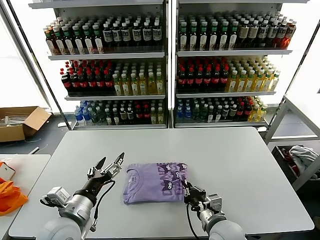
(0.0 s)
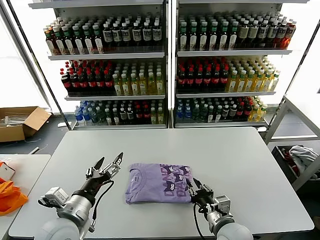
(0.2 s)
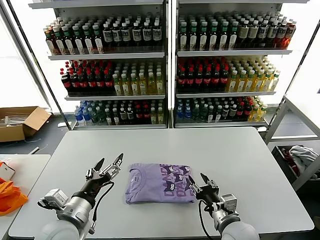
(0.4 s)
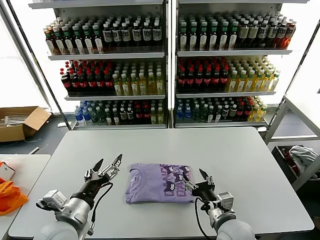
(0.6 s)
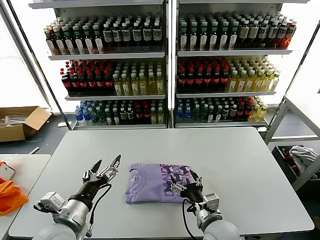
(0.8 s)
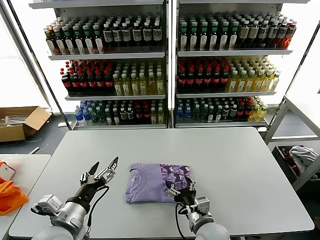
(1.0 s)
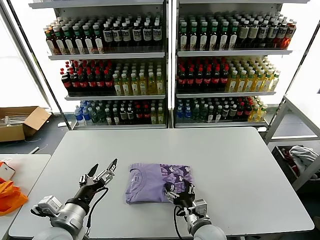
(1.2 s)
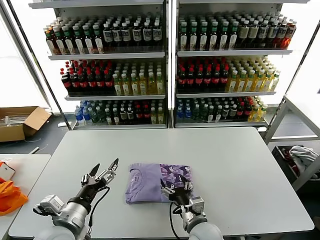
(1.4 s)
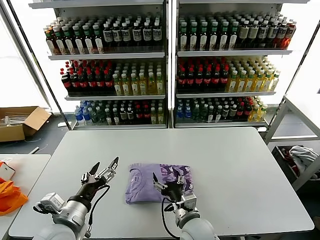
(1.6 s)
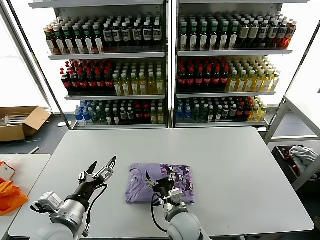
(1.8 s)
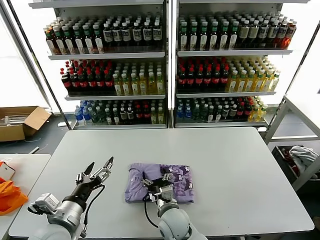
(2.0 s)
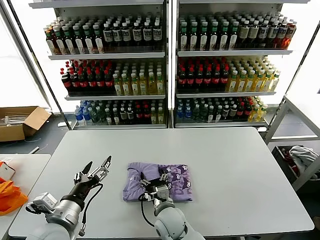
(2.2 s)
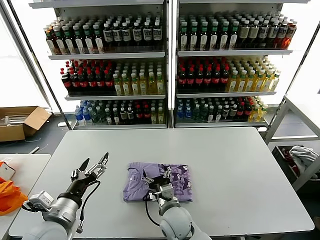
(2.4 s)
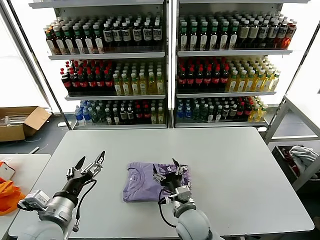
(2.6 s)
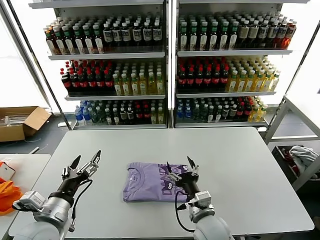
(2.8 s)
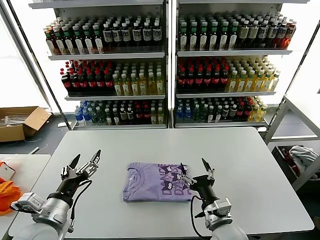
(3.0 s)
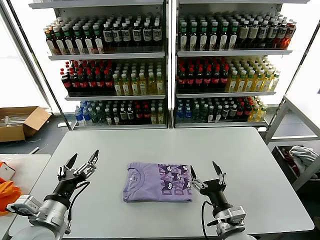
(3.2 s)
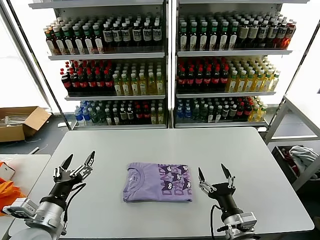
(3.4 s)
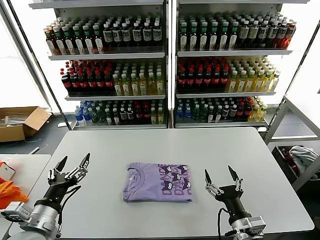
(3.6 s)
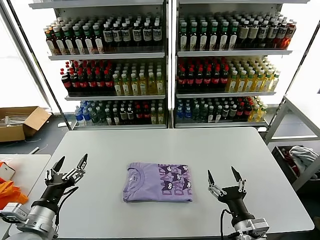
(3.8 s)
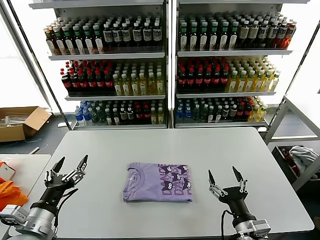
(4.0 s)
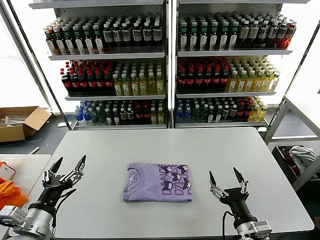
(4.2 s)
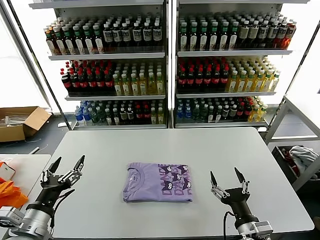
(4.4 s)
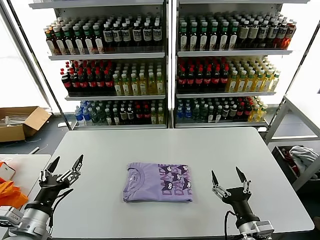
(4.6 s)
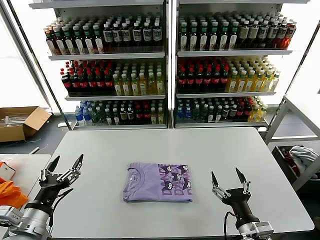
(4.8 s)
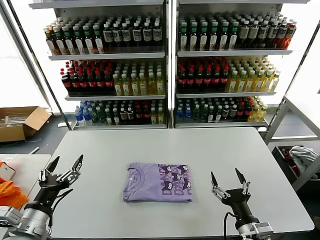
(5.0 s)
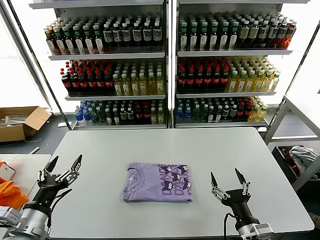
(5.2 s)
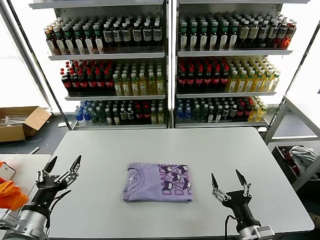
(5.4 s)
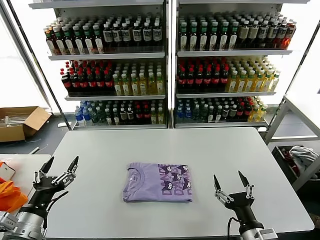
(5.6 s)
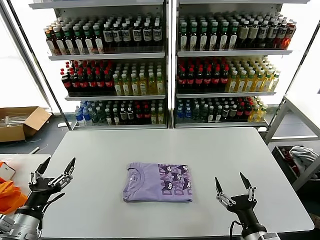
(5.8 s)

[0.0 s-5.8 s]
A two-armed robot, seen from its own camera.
Task of the whole recording: fold and organize the clothes.
Step, 0.0 to 2.4 s: Drag the clothes to the center of the table.
0.0 to 1.4 s: The right gripper ends up roughly 5 cm from where it was, and opens up.
1.4 to 2.8 s: The right gripper reaches roughly 10 cm to the left, then returns.
2.8 to 4.4 s: The right gripper travels to the right and backward by approximately 15 cm, while the left gripper moves approximately 5 cm.
4.4 to 5.8 s: The grippers move only a little.

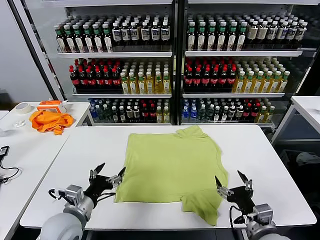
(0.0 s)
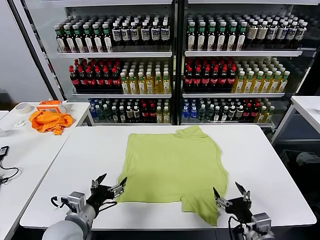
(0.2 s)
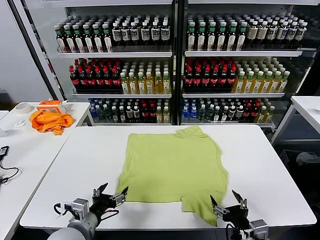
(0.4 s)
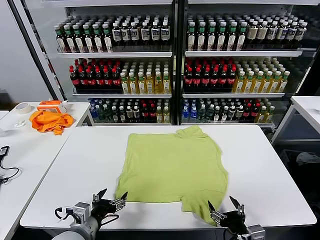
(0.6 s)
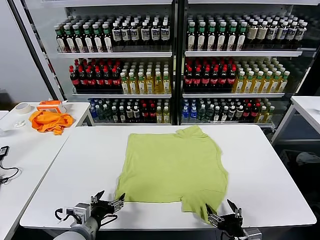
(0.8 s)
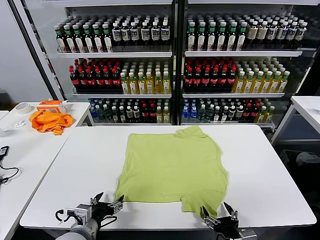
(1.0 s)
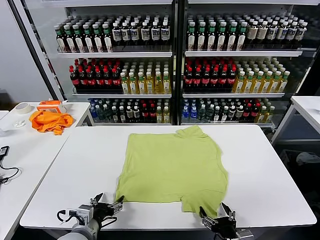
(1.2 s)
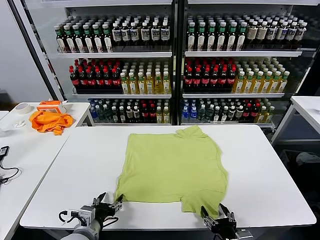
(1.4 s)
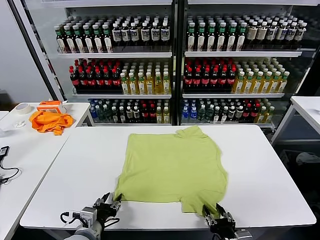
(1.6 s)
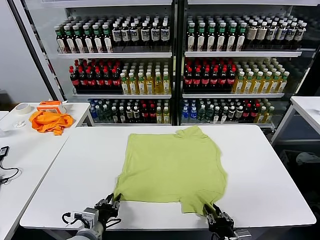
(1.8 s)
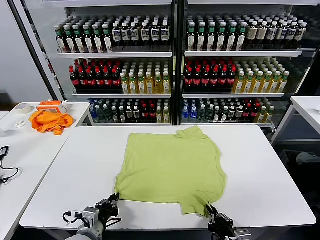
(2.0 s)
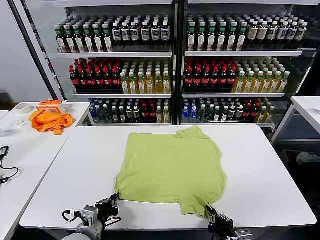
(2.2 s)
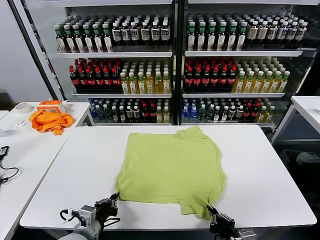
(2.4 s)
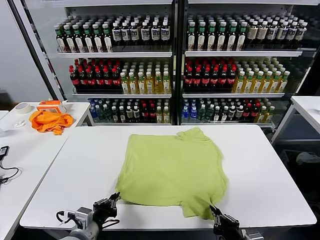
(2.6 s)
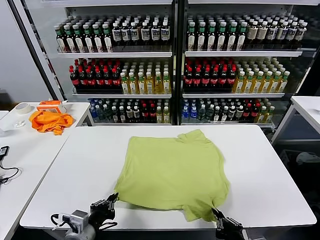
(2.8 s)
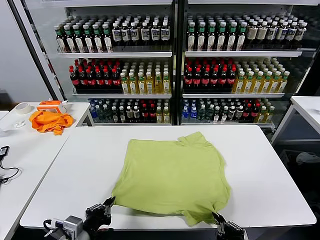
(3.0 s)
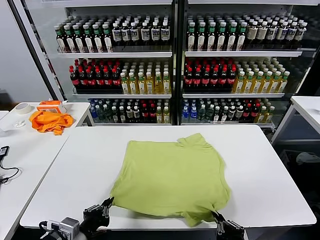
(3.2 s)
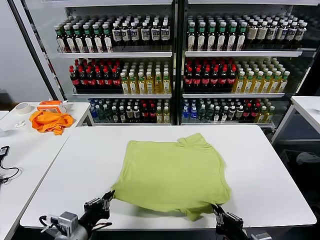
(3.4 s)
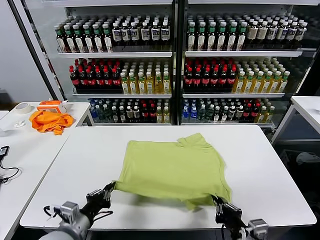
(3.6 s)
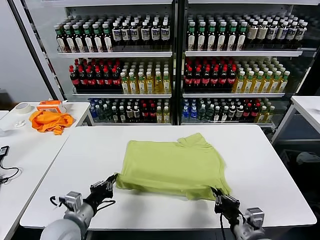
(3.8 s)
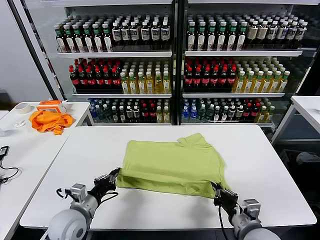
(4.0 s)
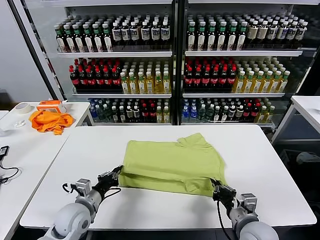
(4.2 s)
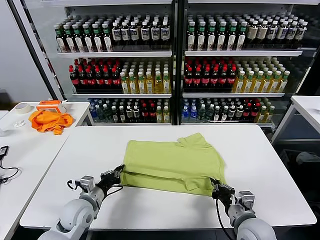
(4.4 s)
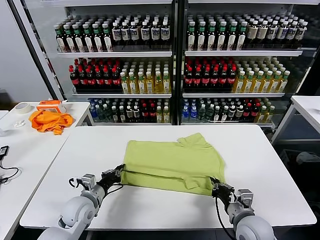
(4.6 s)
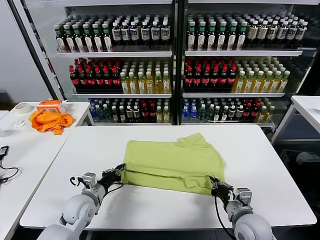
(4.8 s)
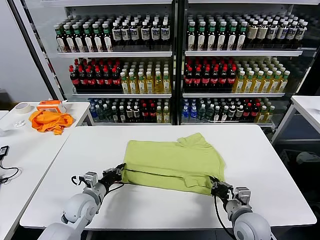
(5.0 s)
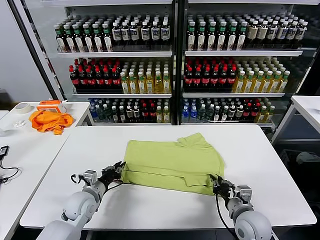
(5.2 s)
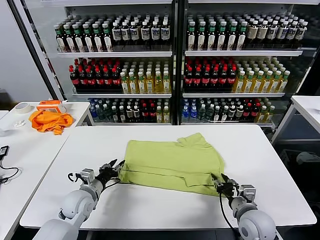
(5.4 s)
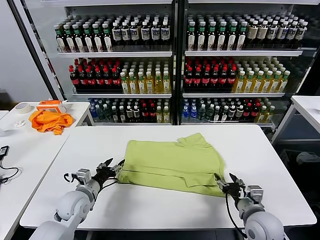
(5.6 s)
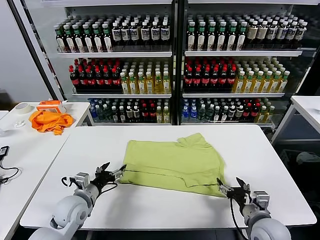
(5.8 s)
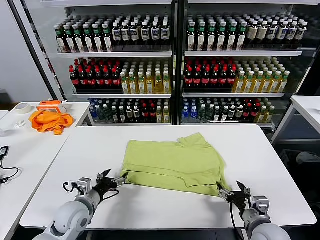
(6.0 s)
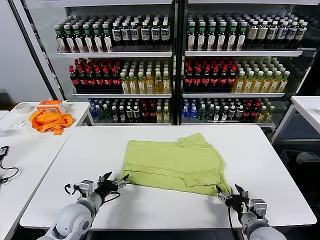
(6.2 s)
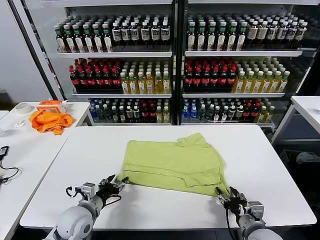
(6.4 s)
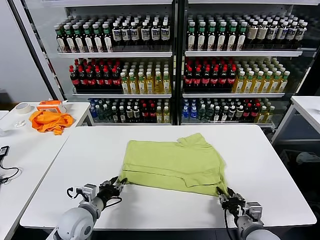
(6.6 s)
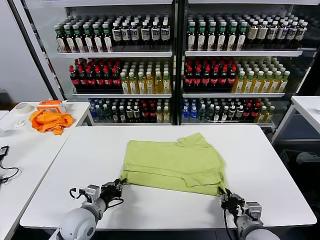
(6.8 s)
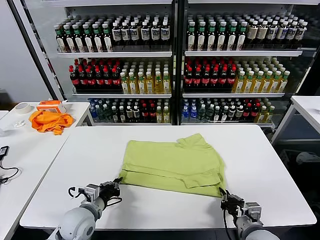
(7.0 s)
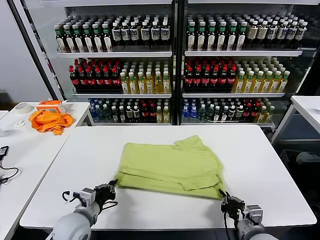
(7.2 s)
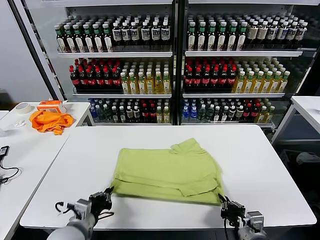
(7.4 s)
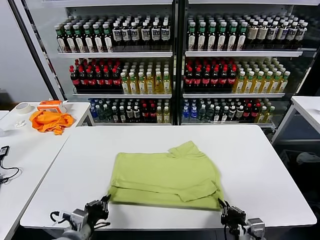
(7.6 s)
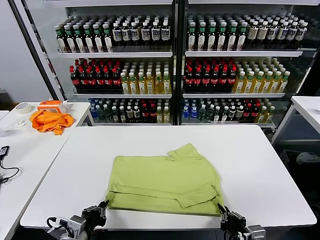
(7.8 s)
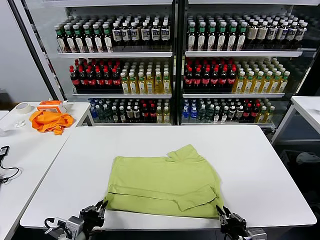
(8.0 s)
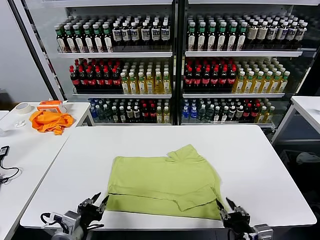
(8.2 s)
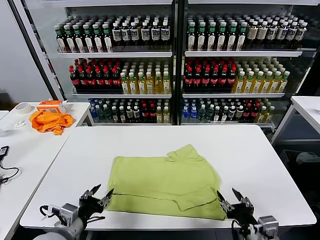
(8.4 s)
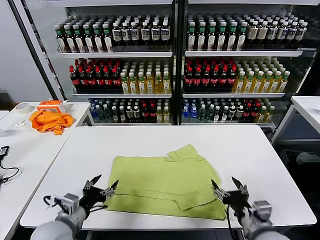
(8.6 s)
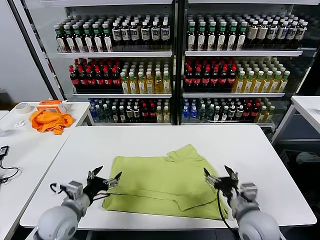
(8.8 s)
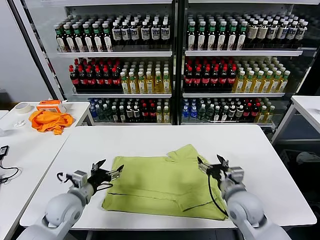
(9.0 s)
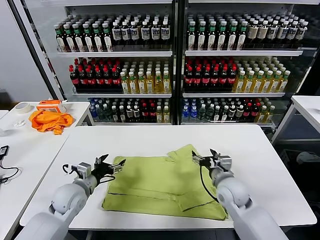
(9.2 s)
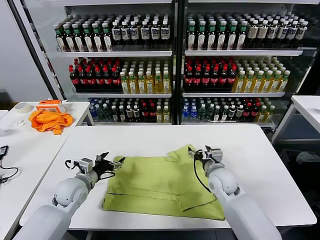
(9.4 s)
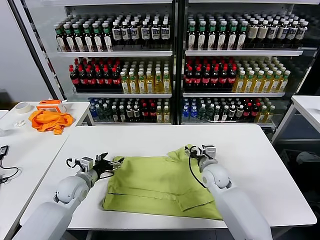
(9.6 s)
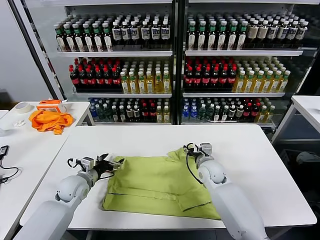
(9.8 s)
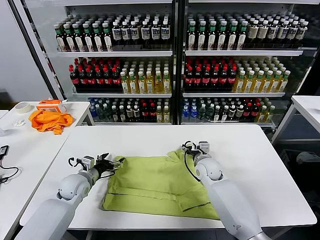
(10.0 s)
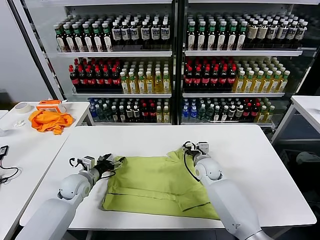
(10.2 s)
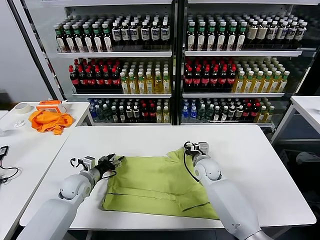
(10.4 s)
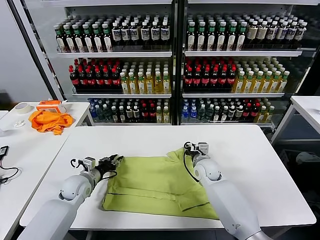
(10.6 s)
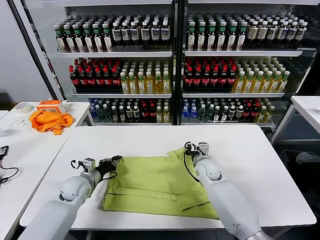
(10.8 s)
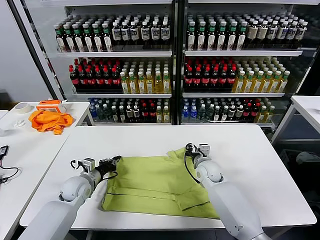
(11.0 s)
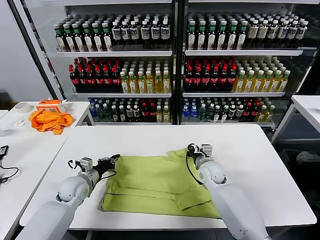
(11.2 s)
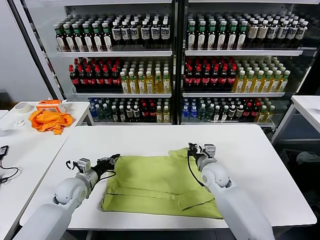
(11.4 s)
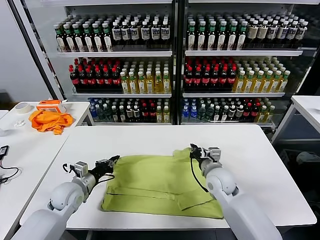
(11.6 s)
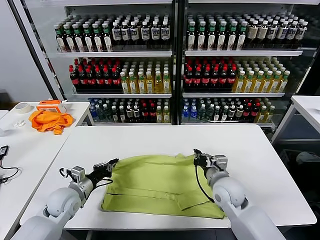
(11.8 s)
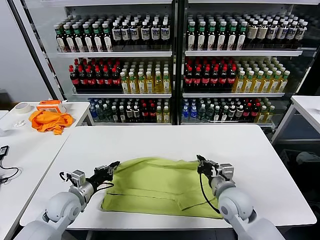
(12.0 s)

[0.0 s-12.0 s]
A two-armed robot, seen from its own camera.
Task of the whole recording: fold and organize the clothes.
Step, 0.0 to 2.0 s: use both grippers simultaneously to clamp the lower edge of the clothing fabric.
Step, 2.2 to 5.4 s: use both grippers to drag the lower edge of the fabric forward and fold it over the upper edge.
Step, 5.6 to 8.2 s: Drag the clothes downward with both gripper.
Step, 8.4 to 10.8 s: use both grippers simultaneously to clamp the upper edge of the clothing fabric.
1.6 to 3.0 s: Both grippers travel together upward, some 5 cm. The right gripper closes its fingers. The left gripper closes up.
3.0 to 4.4 s: The left gripper heads forward and downward, covering roughly 15 cm. Meanwhile the right gripper is displaced forward by approximately 15 cm.
4.4 to 6.0 s: The right gripper opens up, while the left gripper opens.
6.0 to 7.6 s: The right gripper travels backward by some 5 cm, and closes. The left gripper heads backward, covering about 10 cm, and closes up.
7.6 to 9.0 s: The right gripper is displaced forward by some 20 cm, and opens its fingers. Meanwhile the left gripper heads forward, covering about 10 cm, and opens its fingers.
9.0 to 10.4 s: The left gripper moves forward and downward, some 10 cm, and closes up, while the right gripper goes about 15 cm forward, downward and to the left, and closes up.
10.4 to 12.0 s: The left gripper travels backward by about 10 cm, and closes its fingers; the right gripper goes approximately 15 cm backward, and closes its fingers.

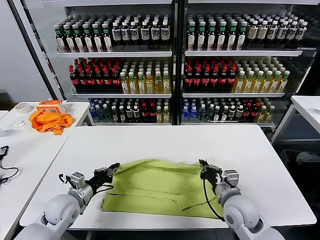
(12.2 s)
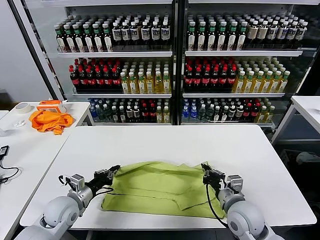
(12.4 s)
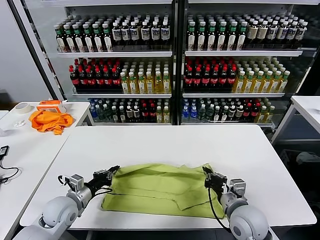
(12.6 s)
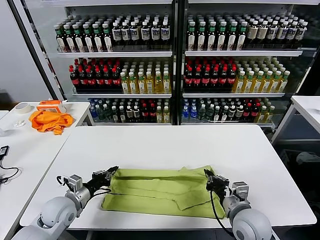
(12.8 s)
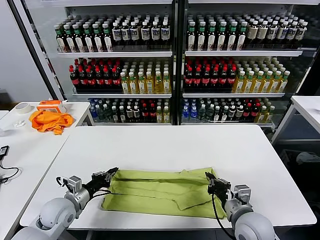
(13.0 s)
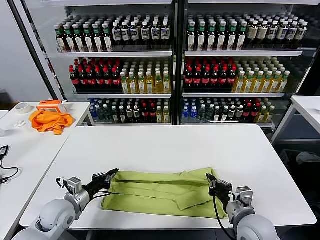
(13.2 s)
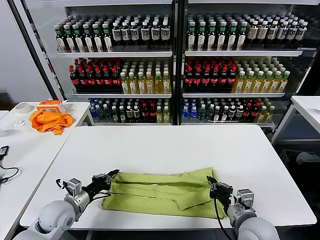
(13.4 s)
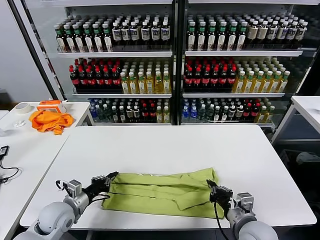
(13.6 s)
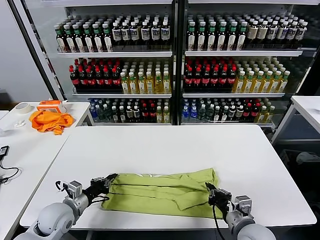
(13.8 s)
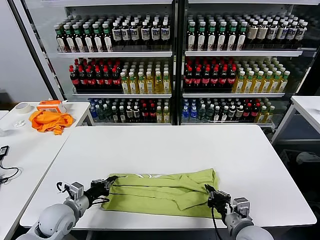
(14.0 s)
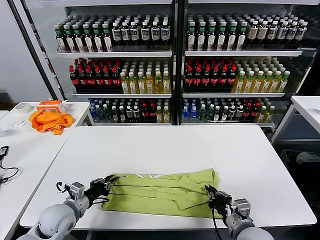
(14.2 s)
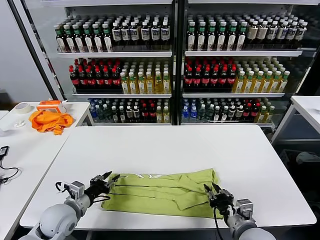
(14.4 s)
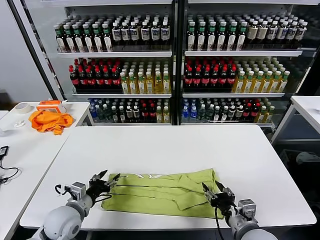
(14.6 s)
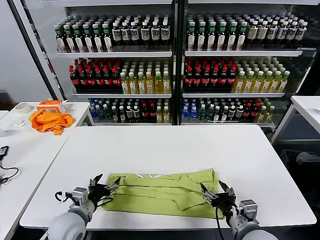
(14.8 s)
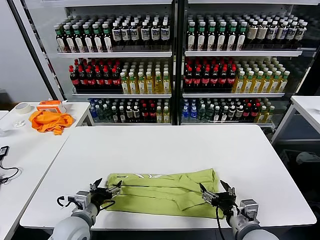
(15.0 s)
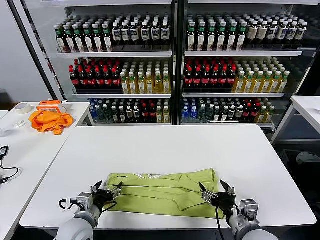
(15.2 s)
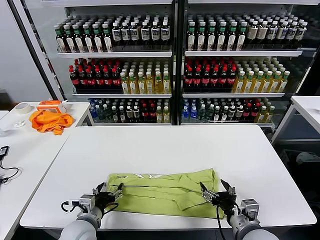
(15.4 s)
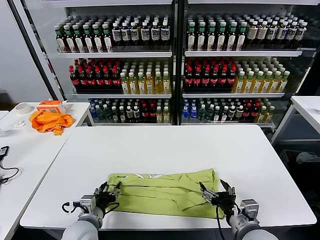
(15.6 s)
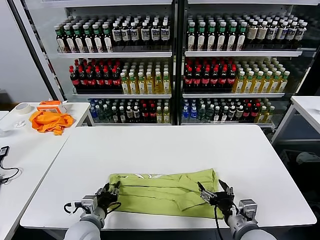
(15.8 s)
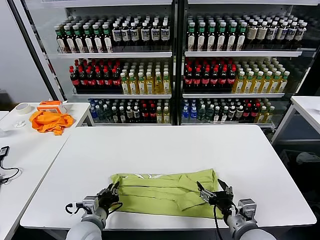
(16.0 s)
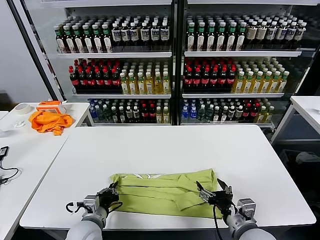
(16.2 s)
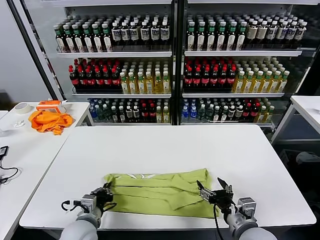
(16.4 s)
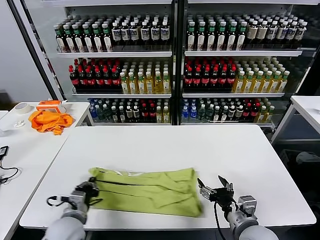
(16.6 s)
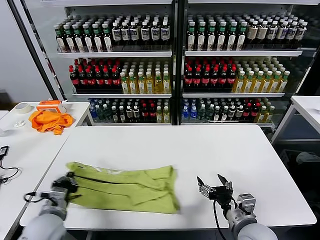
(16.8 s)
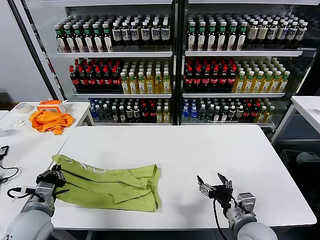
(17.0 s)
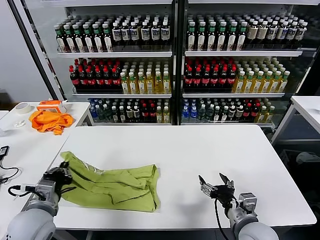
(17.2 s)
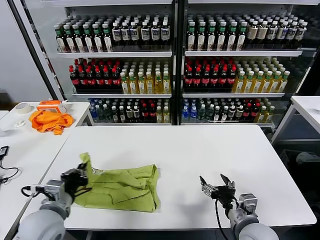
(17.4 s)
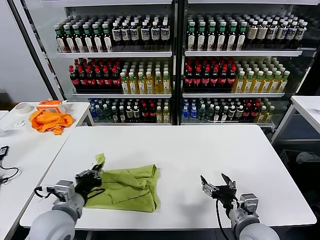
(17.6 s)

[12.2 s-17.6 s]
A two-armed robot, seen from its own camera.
Task of the whole recording: fold and organize the clothes.
Step, 12.2 to 14.4 s: use both grippers to drag the upper edge of the fabric backward and fold it over the lower edge.
Step, 14.6 to 16.0 s: use the left gripper to clamp the left edge of the fabric.
12.2 to 13.6 s: The right gripper heads backward, covering approximately 5 cm.
13.6 to 15.0 s: The left gripper heads to the right, covering approximately 5 cm, and opens, while the right gripper opens its fingers.
15.0 to 16.2 s: The left gripper closes up.
16.2 to 17.6 s: The left gripper is displaced upward by about 10 cm.
